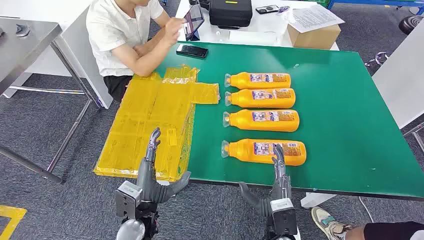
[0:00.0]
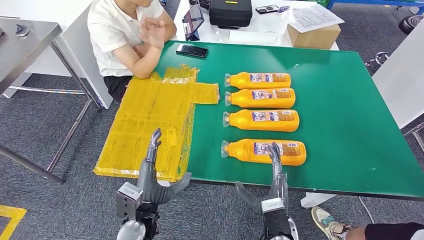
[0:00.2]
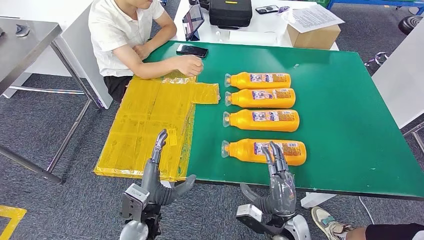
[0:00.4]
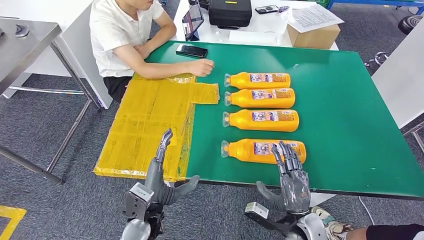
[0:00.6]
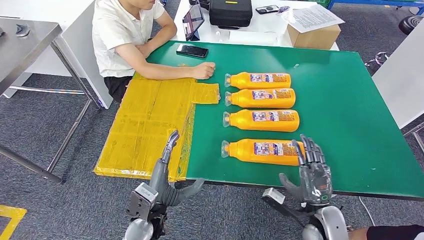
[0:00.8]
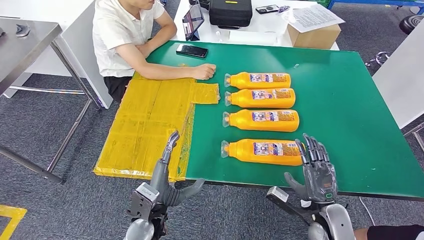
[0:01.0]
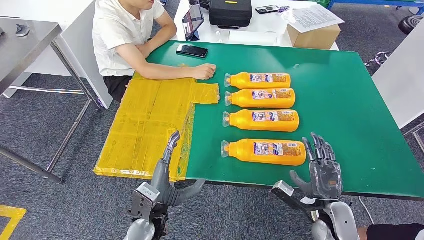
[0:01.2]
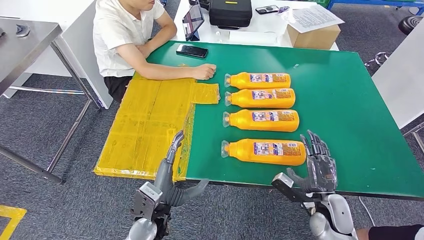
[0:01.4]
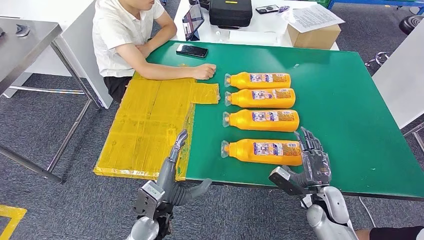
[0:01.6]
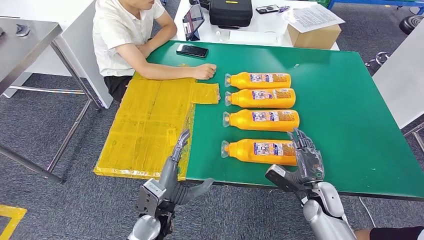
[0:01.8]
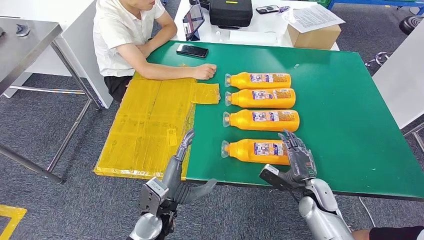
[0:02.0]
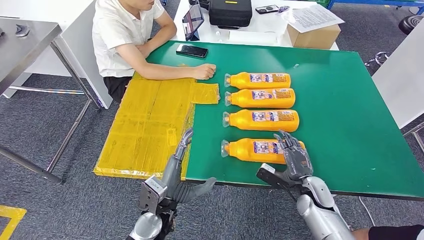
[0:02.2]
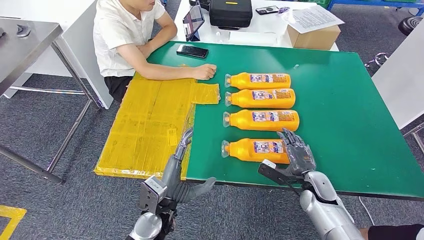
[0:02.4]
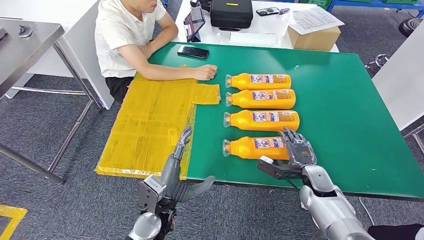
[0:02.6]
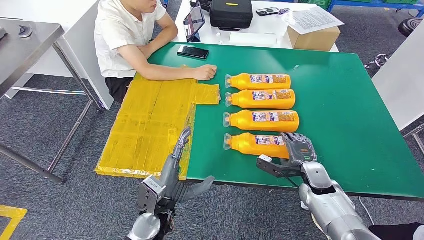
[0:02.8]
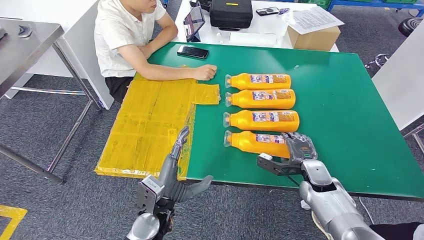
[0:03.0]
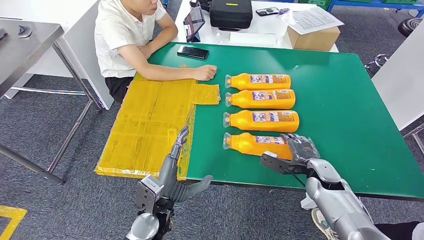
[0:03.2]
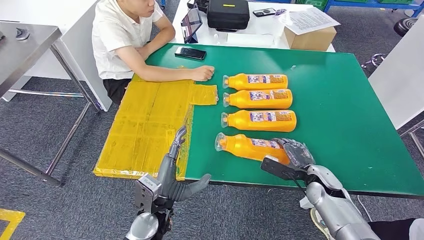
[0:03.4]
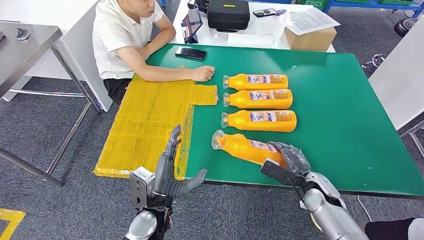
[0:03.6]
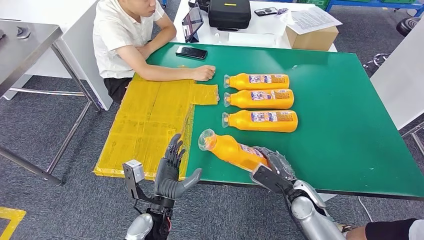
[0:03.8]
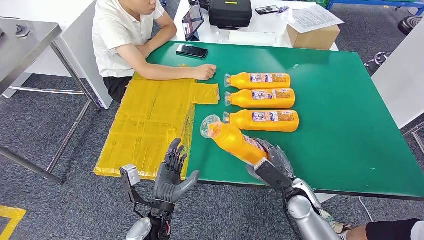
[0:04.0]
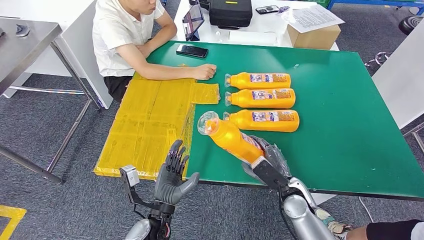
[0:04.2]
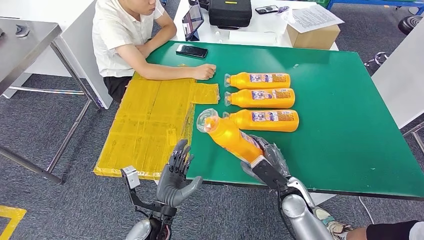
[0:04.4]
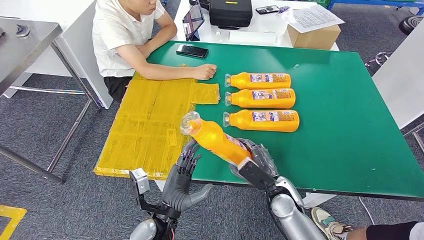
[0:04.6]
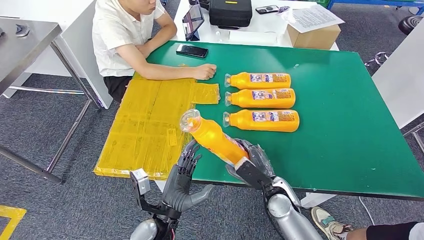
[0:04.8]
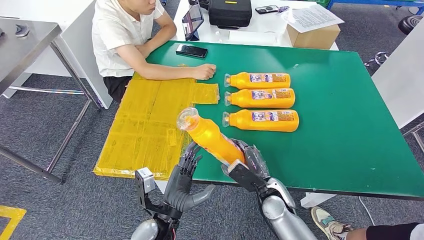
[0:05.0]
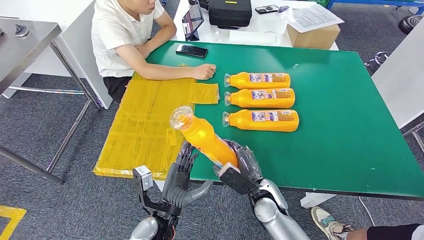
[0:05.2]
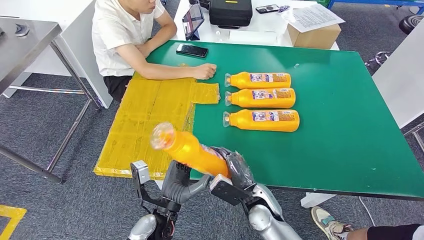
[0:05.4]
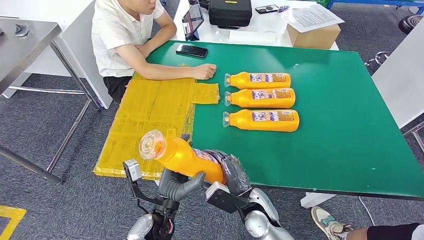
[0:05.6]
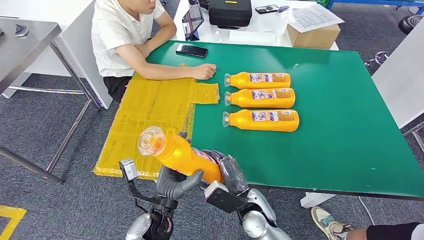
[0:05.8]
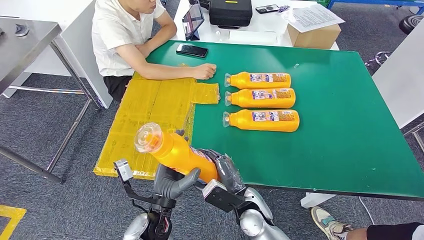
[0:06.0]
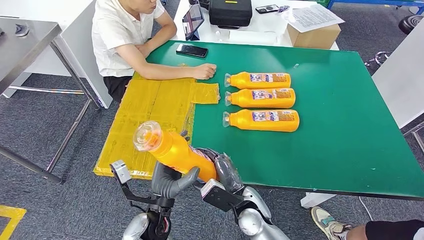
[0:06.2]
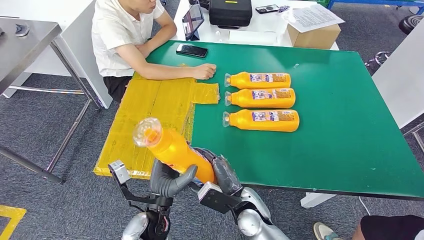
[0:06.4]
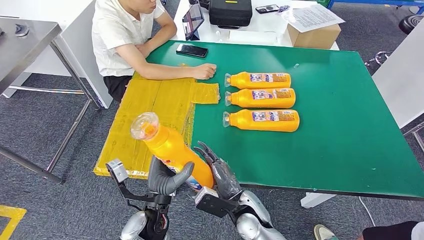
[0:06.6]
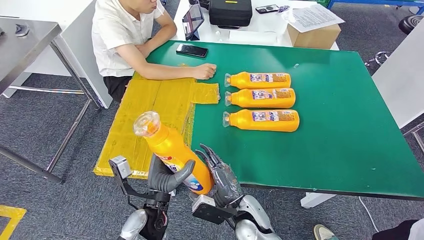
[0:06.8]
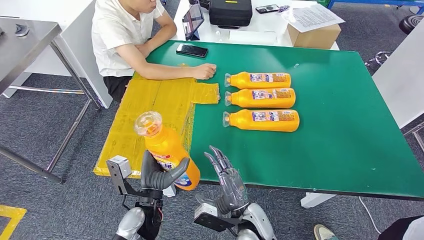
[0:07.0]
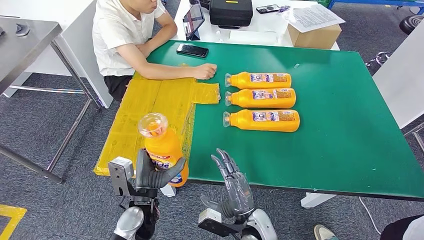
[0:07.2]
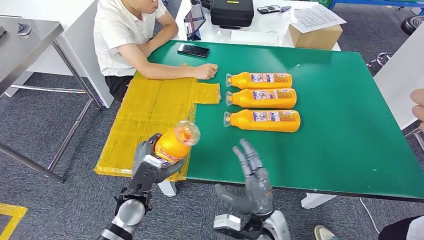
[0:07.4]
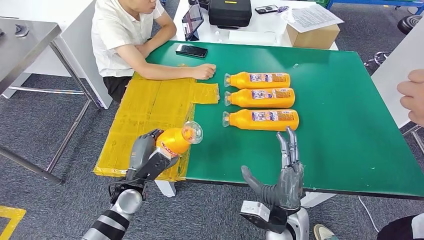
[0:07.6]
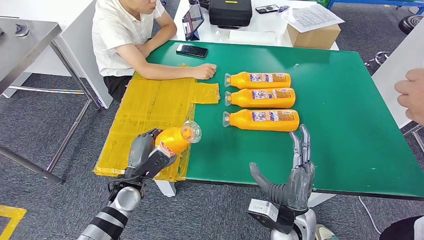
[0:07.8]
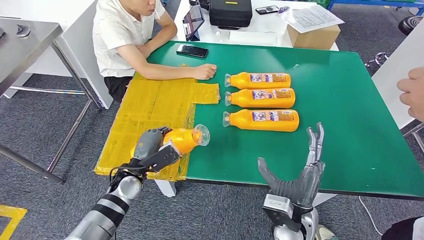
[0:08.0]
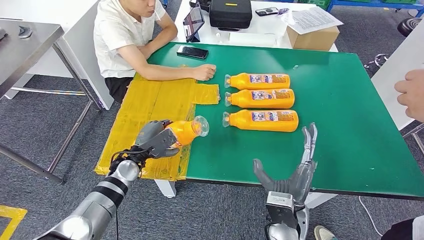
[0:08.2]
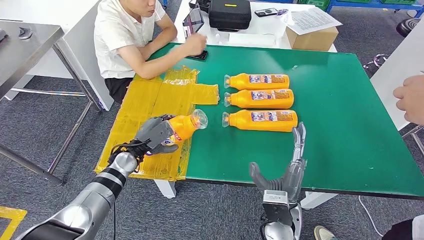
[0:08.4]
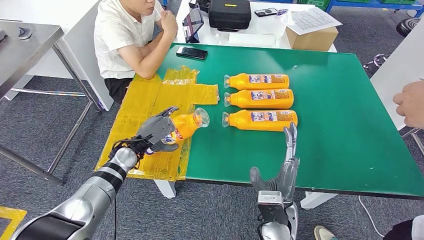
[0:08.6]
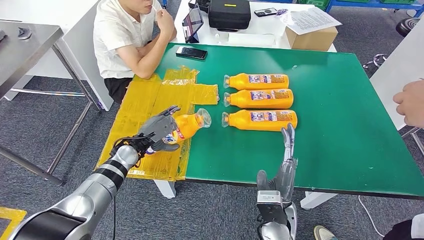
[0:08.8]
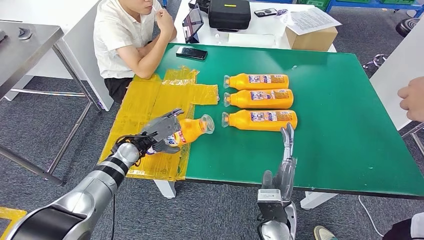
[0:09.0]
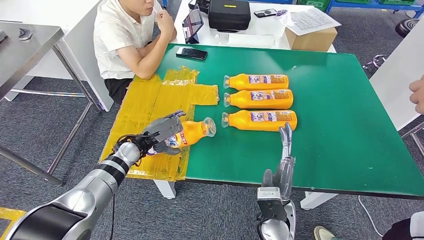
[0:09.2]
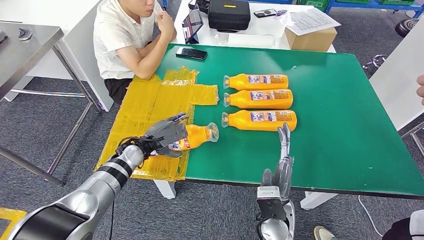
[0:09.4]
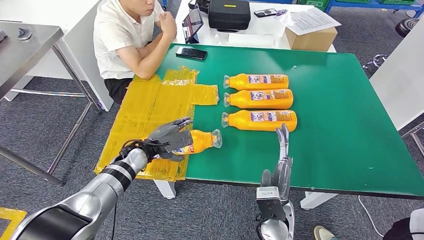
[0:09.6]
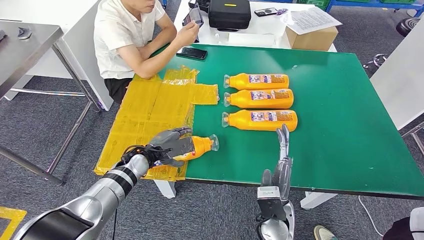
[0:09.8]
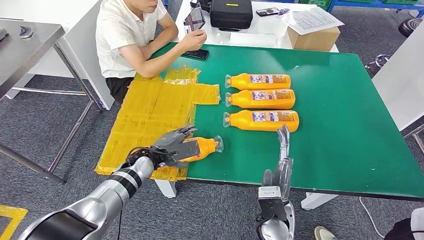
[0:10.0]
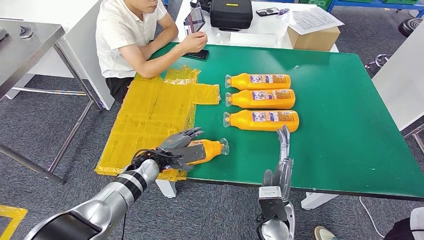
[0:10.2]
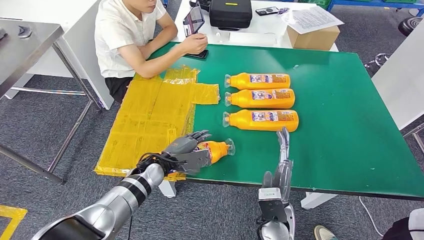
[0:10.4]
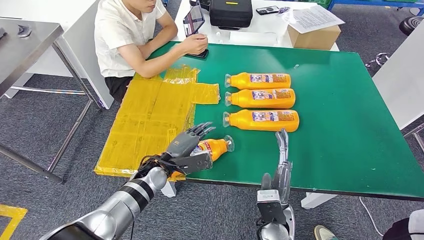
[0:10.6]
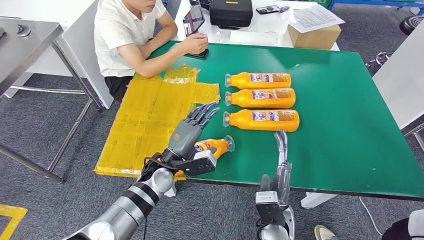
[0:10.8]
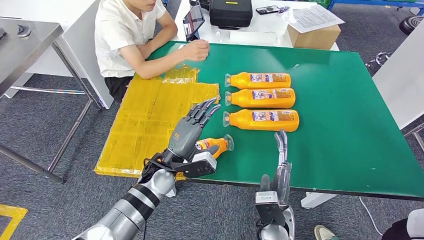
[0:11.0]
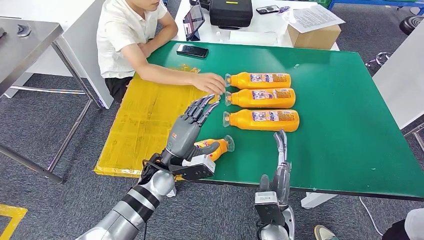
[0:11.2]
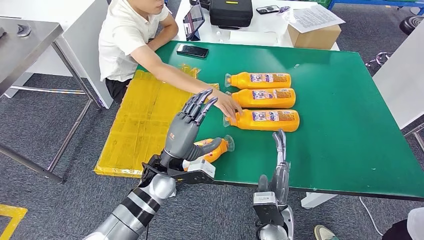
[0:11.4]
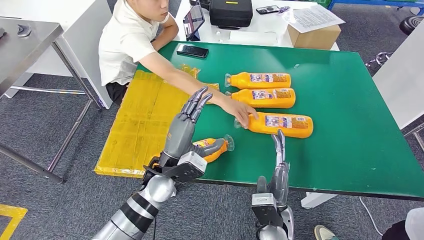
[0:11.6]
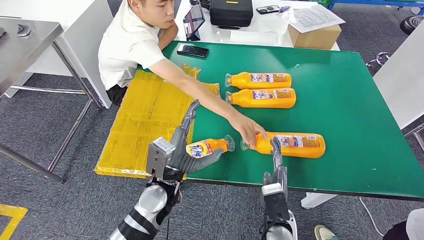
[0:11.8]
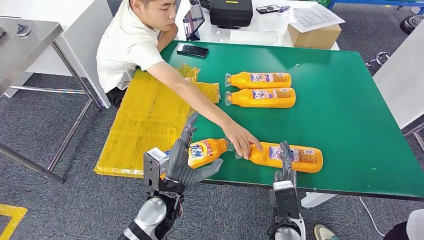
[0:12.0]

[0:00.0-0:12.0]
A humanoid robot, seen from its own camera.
Step, 0:00.0 to 0:04.8: Take the fast-moving consumer goods bottle from the table.
Step, 0:05.2 to 0:09.2: Flip the fast-moving consumer goods bottle to the front side.
0:01.6 to 0:03.0: The right hand shifts about 5 cm forward.
0:03.0 to 0:04.4: The right hand heads to the left and backward, covering approximately 10 cm.
0:04.4 to 0:06.0: The right hand shifts some 10 cm to the left.
0:06.0 to 0:07.6: The right hand heads to the right, covering roughly 5 cm; the left hand is displaced to the left and forward by approximately 10 cm.

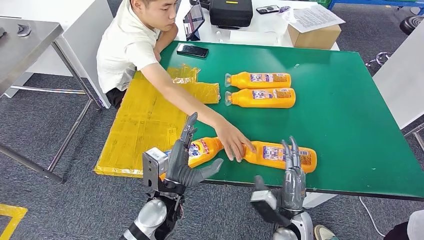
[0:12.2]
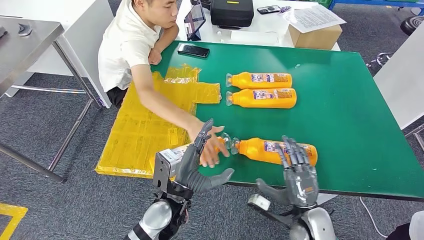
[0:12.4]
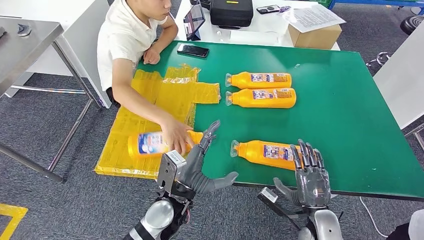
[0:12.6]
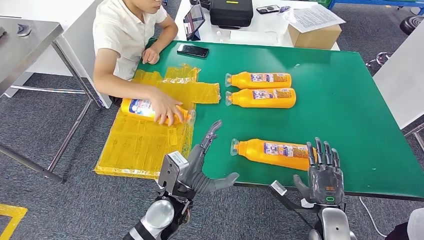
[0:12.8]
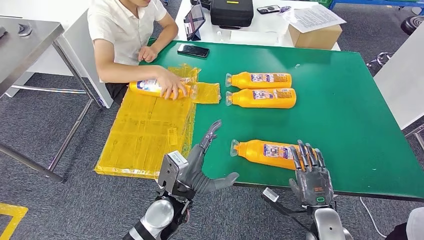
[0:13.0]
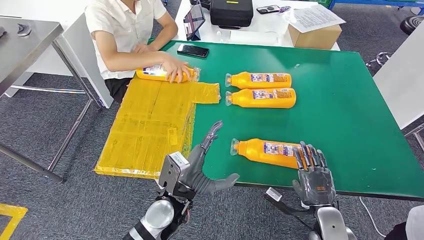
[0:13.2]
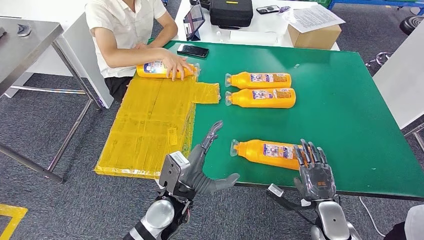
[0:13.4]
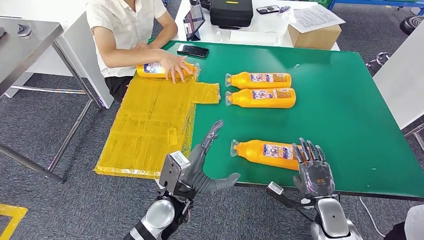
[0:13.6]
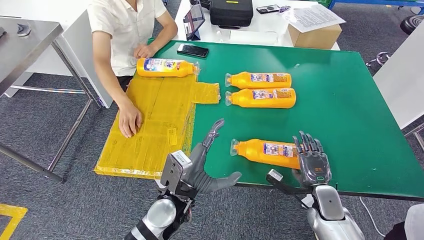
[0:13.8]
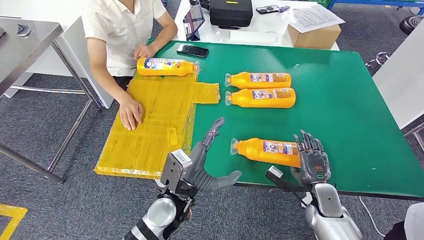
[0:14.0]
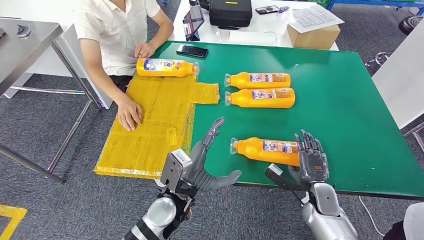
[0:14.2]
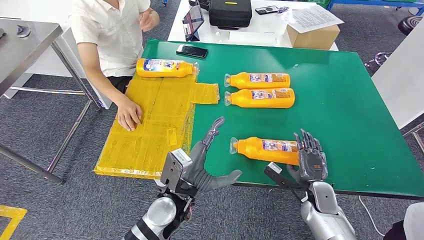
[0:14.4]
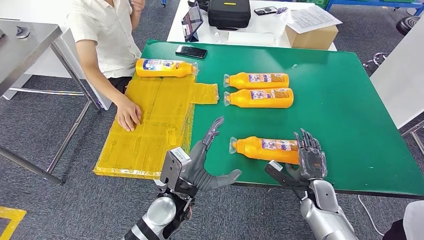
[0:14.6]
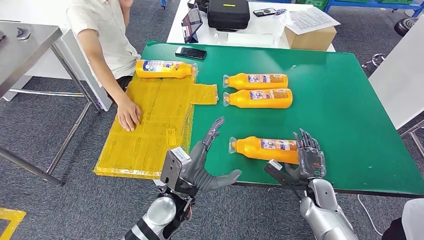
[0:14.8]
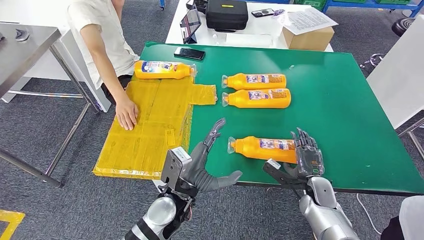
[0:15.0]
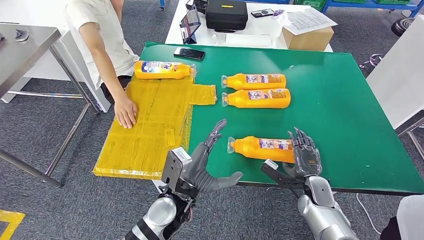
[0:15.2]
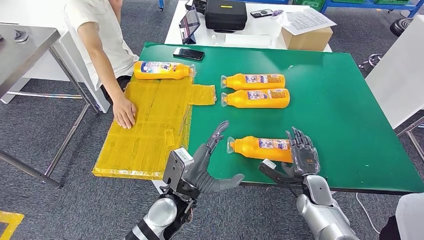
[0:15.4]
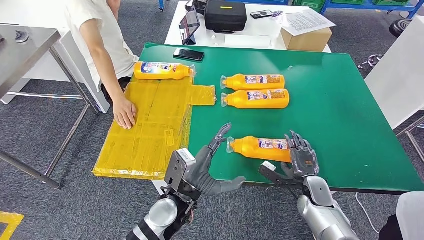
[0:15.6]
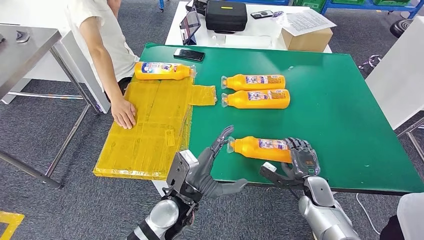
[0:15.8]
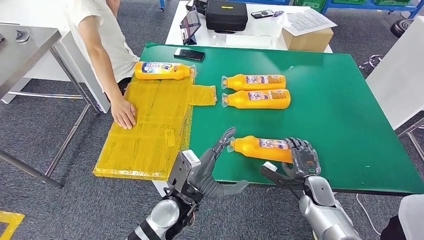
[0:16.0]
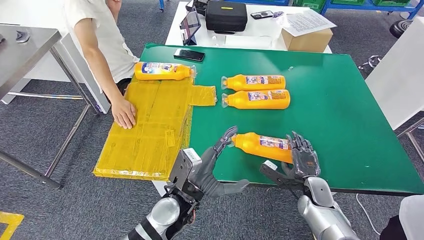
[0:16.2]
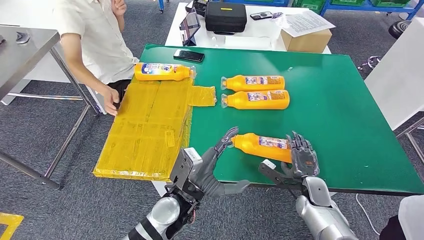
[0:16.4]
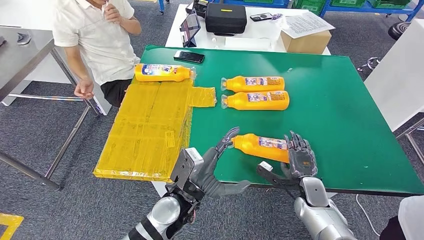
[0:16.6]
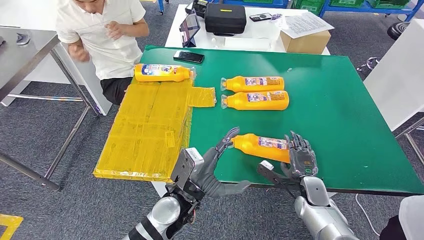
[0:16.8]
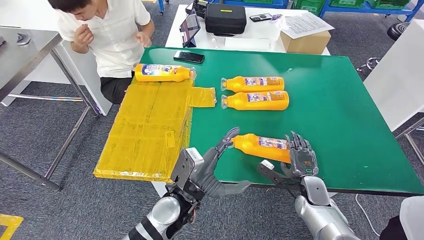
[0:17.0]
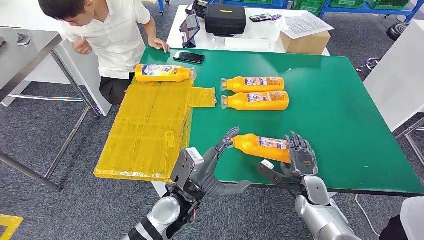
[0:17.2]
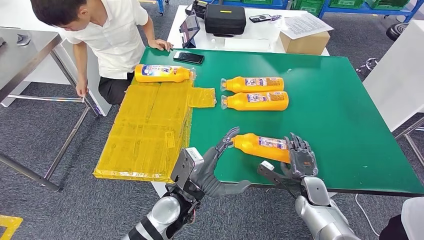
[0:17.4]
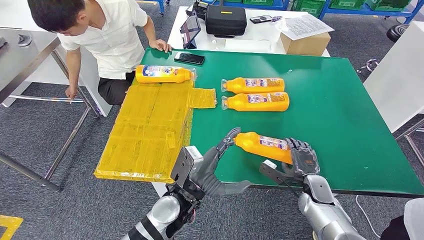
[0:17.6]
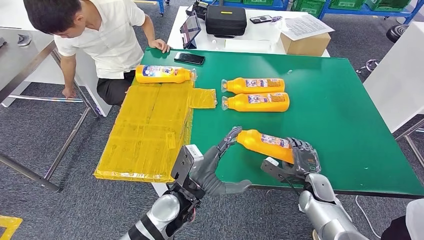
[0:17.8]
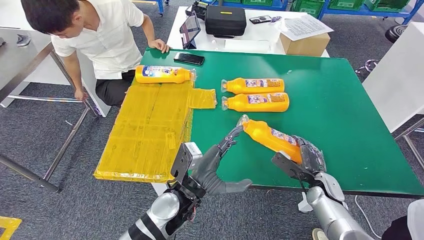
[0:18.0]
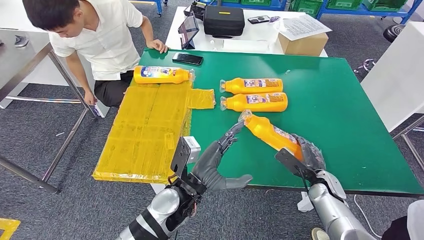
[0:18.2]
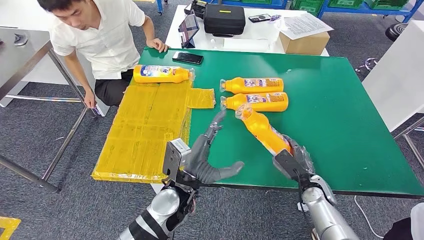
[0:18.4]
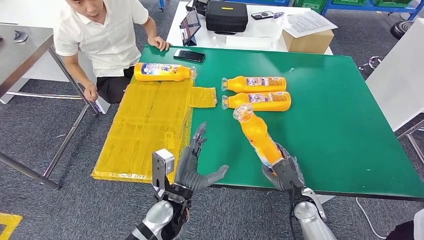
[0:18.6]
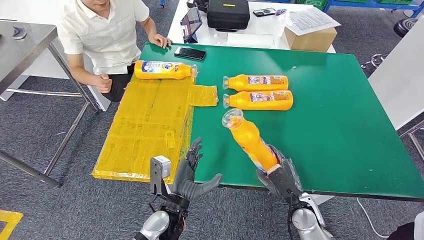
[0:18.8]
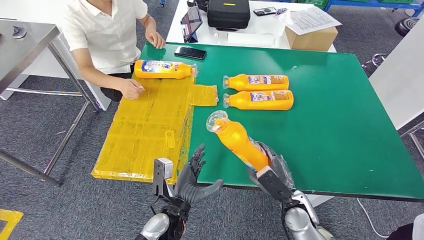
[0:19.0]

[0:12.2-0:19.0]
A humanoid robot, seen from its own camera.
0:12.2 to 0:13.6: The right hand goes some 10 cm to the right.
0:15.0 to 0:16.2: The hands make only small movements.
